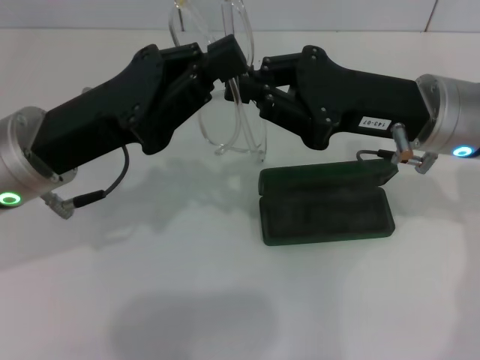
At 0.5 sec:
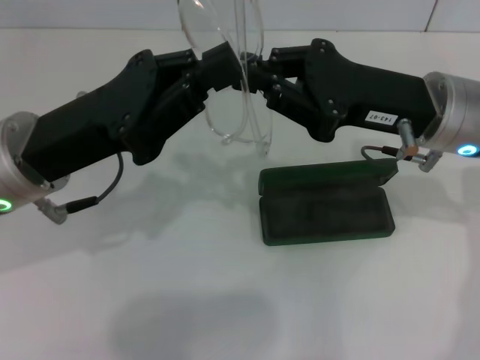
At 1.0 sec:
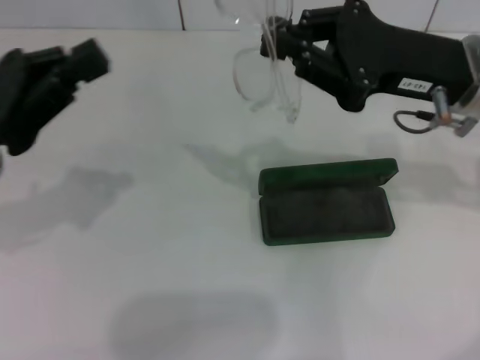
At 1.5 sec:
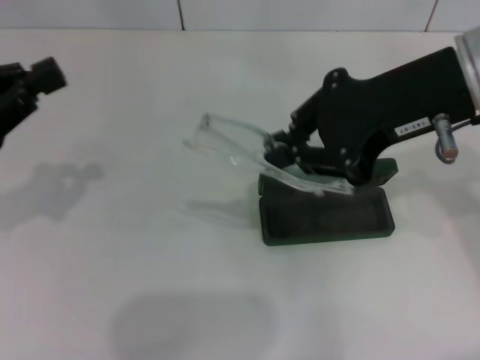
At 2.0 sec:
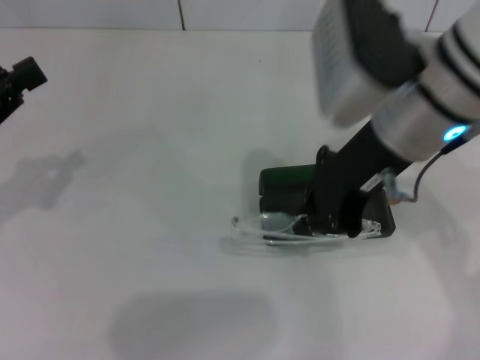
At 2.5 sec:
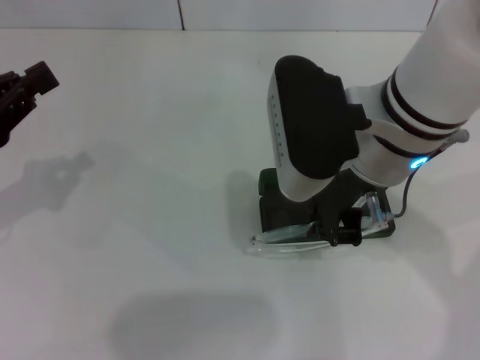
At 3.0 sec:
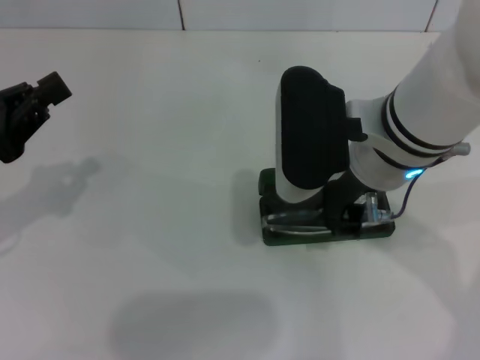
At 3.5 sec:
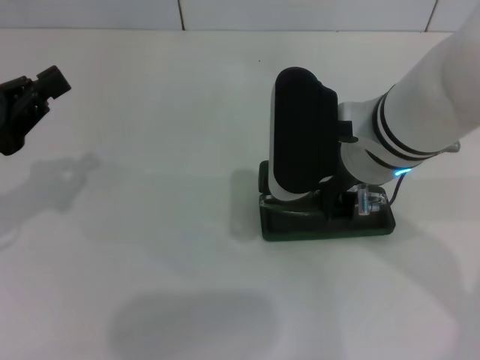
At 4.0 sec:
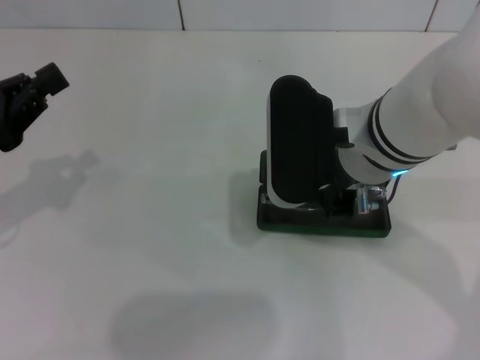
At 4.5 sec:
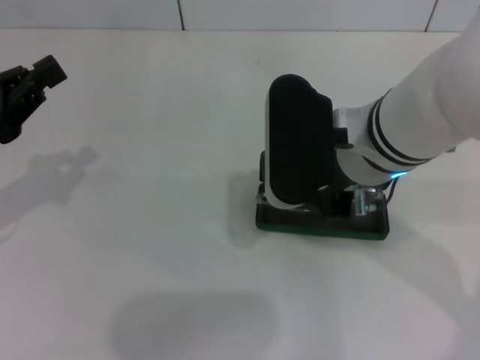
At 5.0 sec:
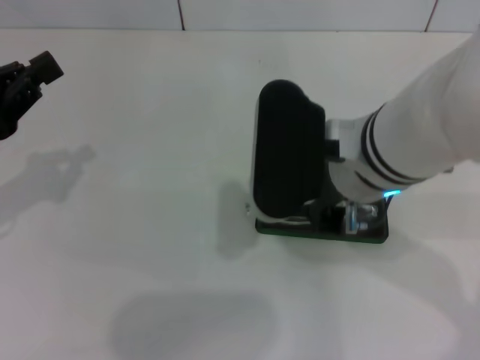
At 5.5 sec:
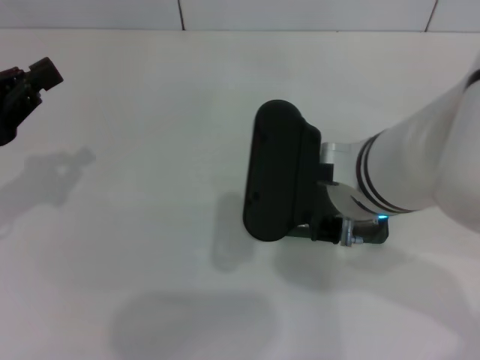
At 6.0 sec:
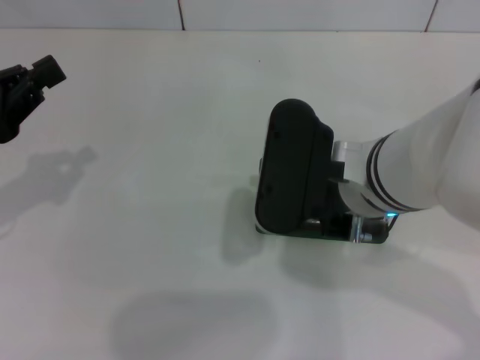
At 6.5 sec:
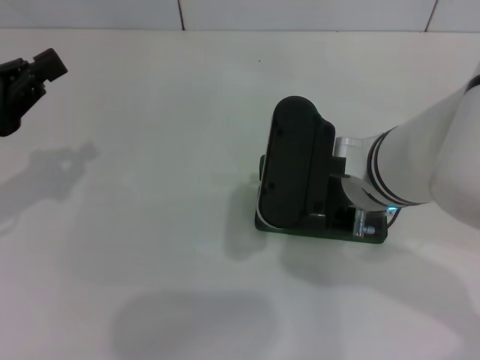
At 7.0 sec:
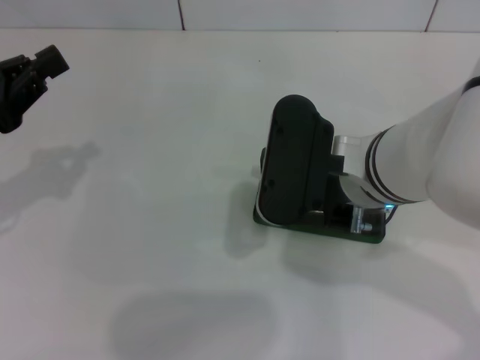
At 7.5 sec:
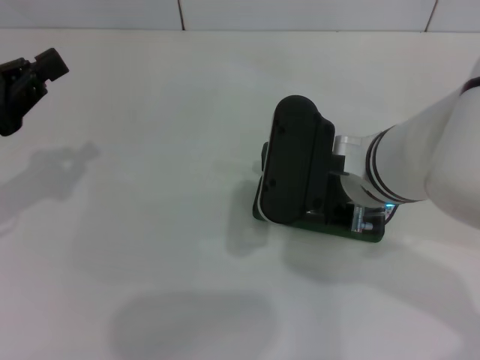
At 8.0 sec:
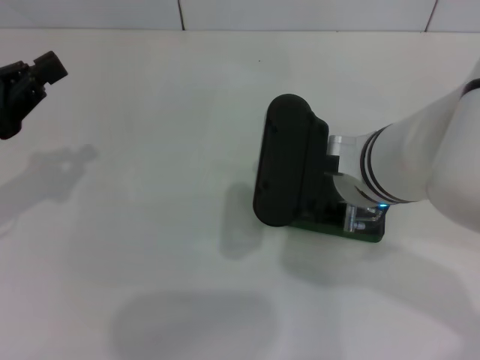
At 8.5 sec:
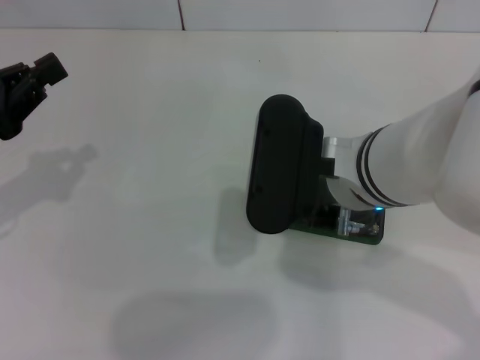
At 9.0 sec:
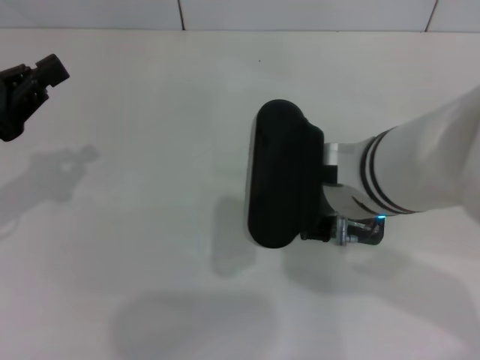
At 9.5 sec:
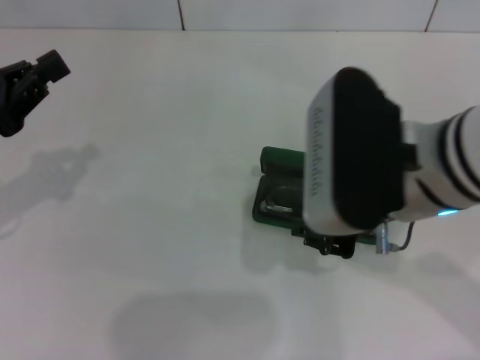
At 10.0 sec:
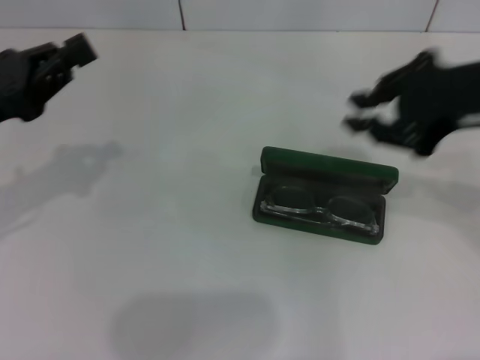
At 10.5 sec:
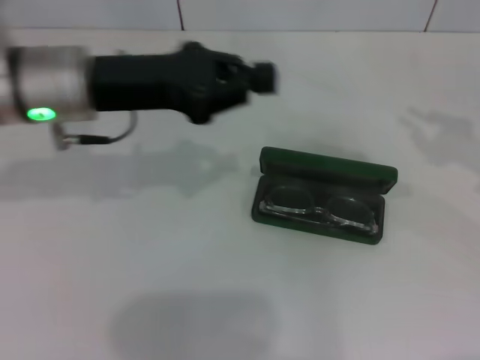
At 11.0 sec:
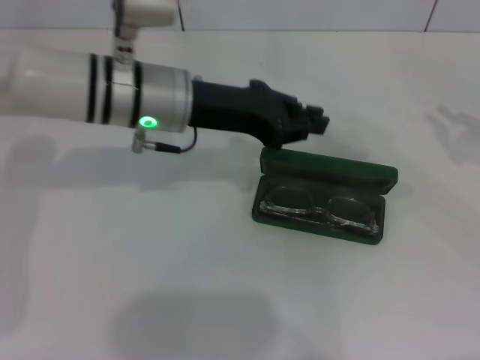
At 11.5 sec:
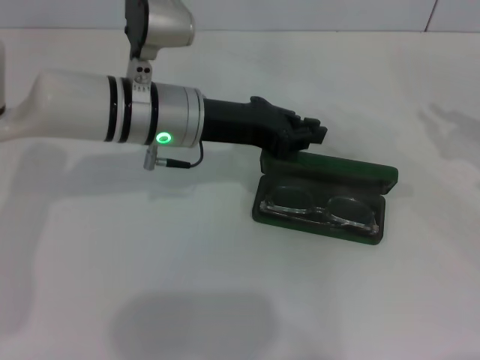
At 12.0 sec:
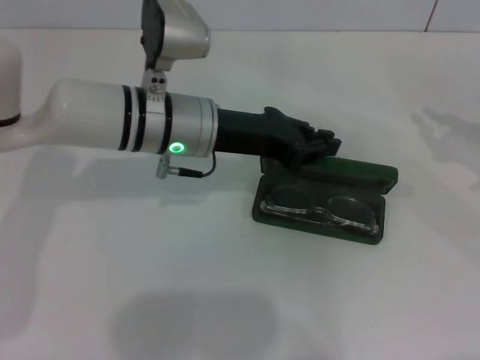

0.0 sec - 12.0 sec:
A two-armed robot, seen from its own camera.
Step, 0.0 sec - 8.0 sec: Put the glasses into the case with your right hand.
0.0 sec - 2.0 sec: The left gripper shifts roughly 15 cm to the left. Meanwhile the right gripper is displaced upward by approximately 5 cm.
2.0 sec - 4.0 sec: The right gripper is displaced downward by some 5 cm.
4.0 sec - 8.0 sec: The grippers make only small movements.
8.0 sec - 10.0 sec: The right gripper moves to the right and upward, roughly 20 cm.
10.0 sec - 12.0 sec: The left gripper travels to the right by about 20 cm. Meanwhile the right gripper travels downward and to the right by about 20 cm.

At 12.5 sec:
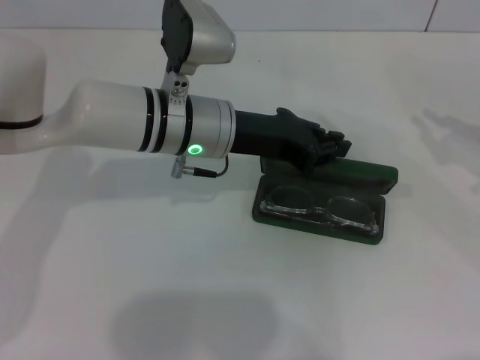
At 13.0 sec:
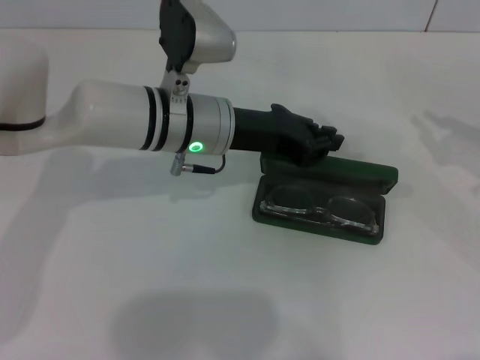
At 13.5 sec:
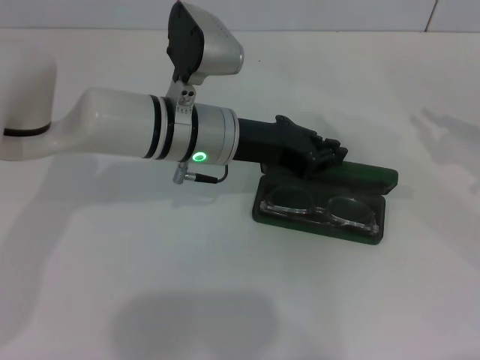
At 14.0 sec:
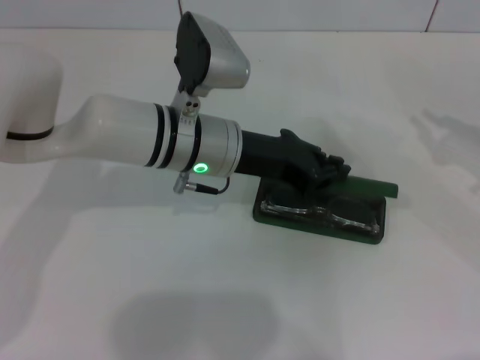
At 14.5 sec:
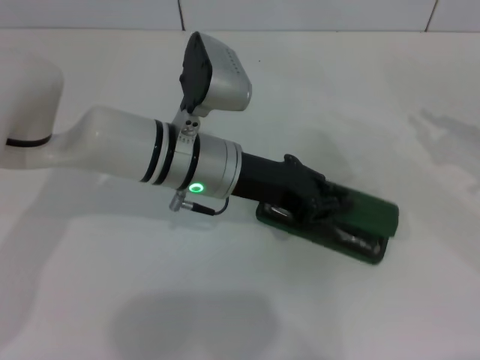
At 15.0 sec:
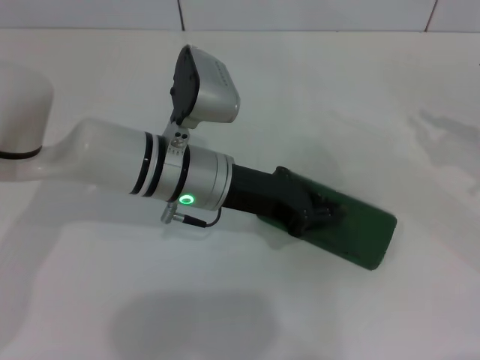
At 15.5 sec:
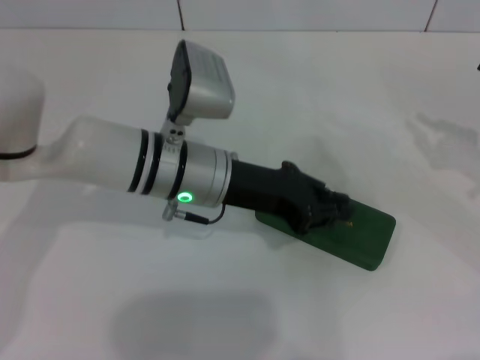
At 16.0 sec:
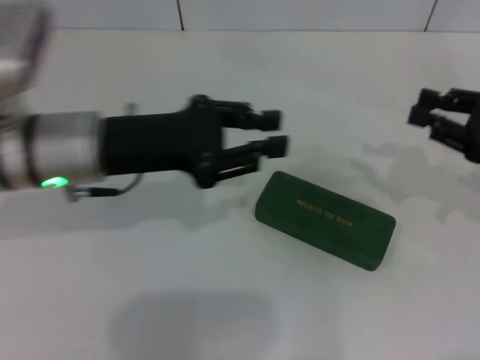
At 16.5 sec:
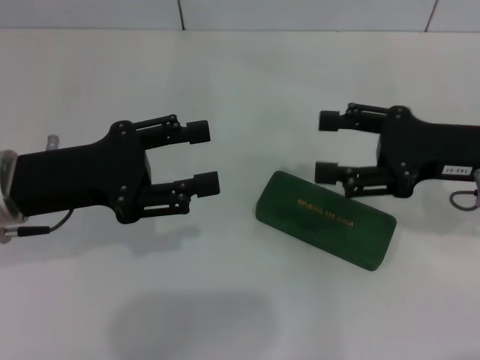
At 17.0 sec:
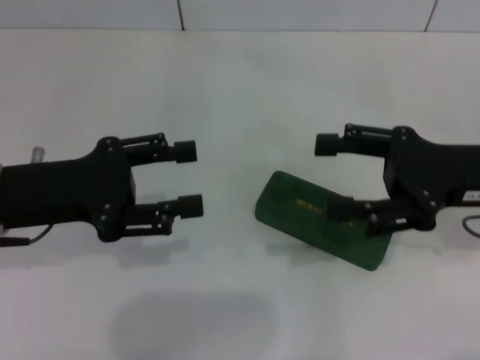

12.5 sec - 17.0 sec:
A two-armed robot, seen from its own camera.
Step, 12.5 sec - 15.0 sec: Close the glasses case with your left hand.
12.5 sec - 14.5 sec: The grippers make only small movements.
14.5 sec - 17.0 sec: The left gripper shifts roughly 20 cm to the left, and opens up. Meanwhile the right gripper heads to the left, covering about 10 cm, and opens up.
